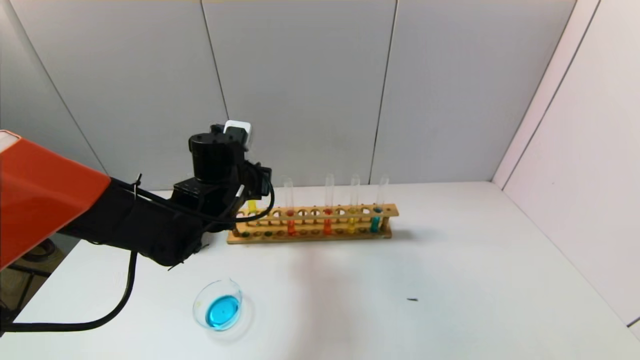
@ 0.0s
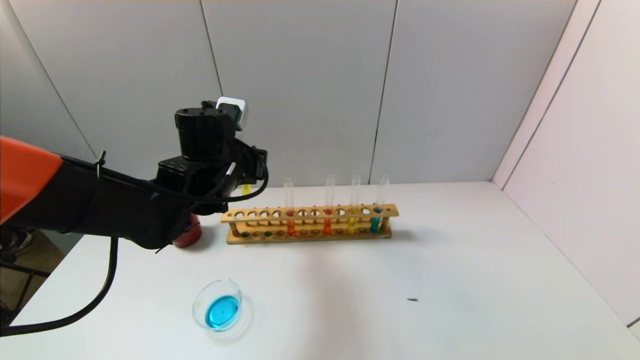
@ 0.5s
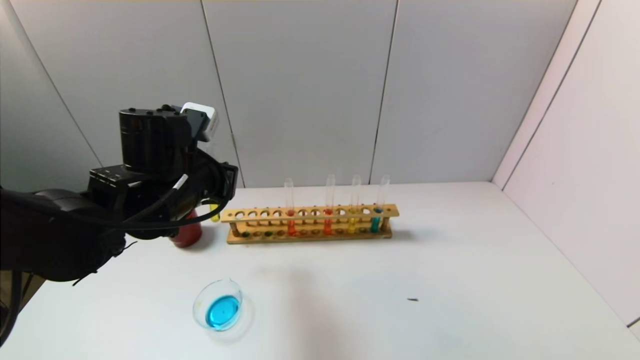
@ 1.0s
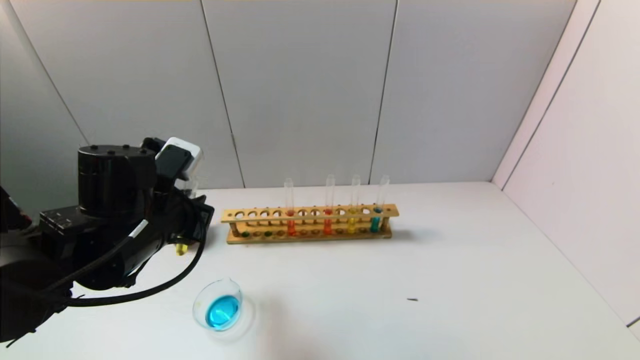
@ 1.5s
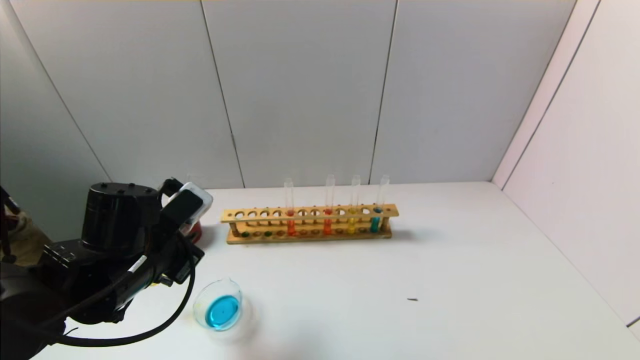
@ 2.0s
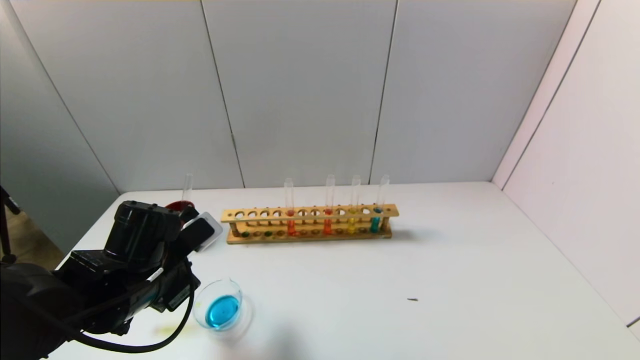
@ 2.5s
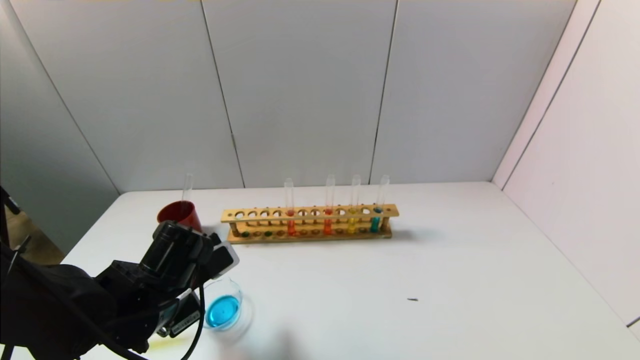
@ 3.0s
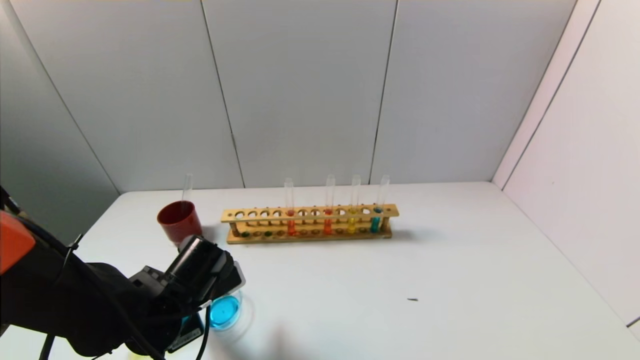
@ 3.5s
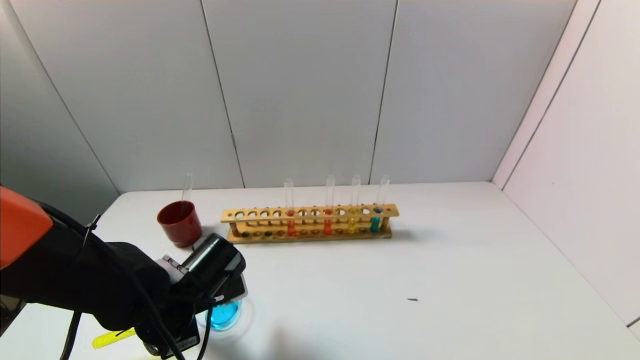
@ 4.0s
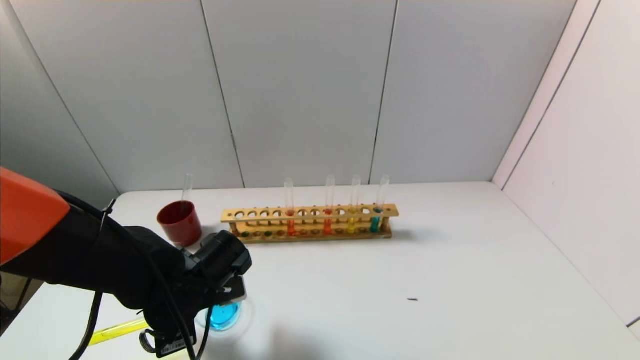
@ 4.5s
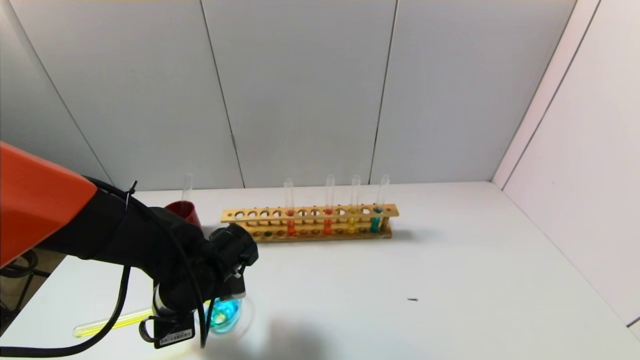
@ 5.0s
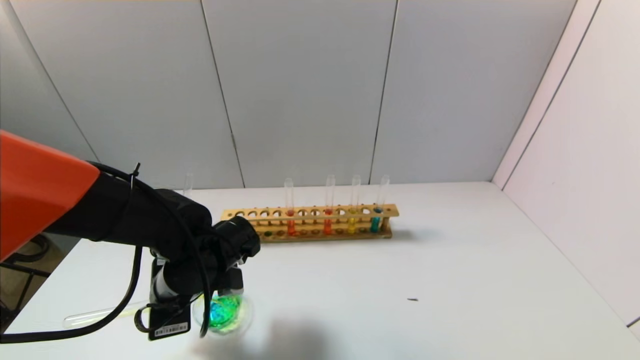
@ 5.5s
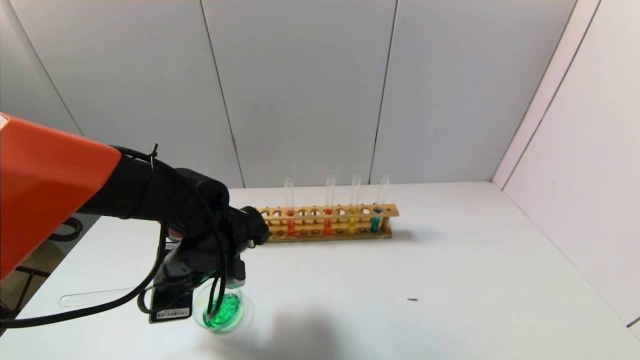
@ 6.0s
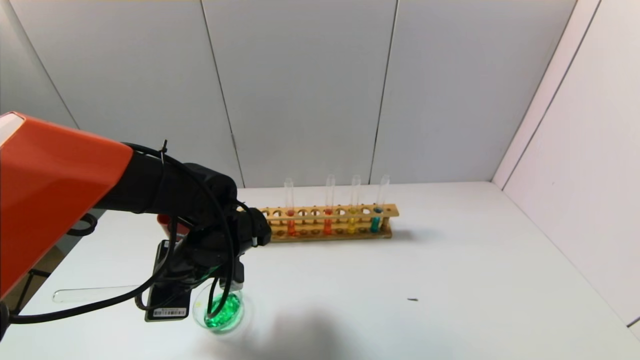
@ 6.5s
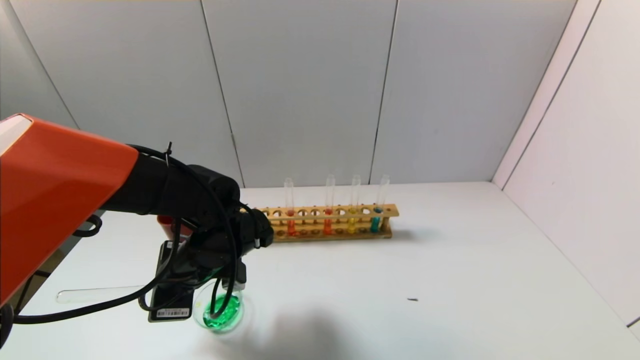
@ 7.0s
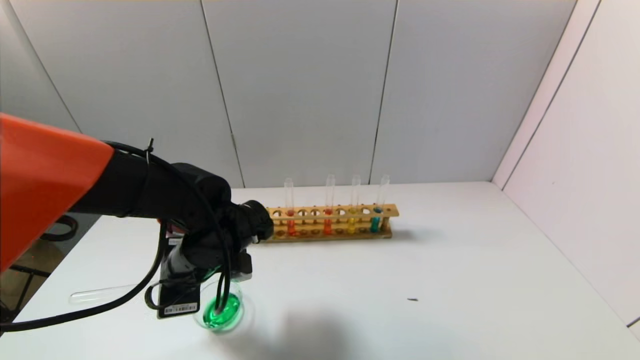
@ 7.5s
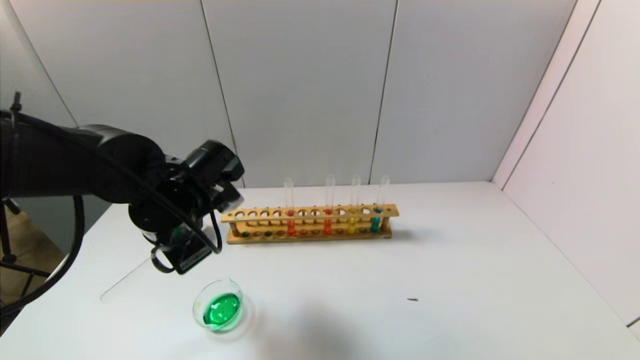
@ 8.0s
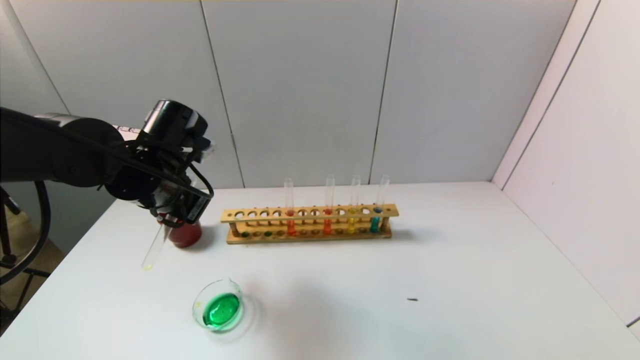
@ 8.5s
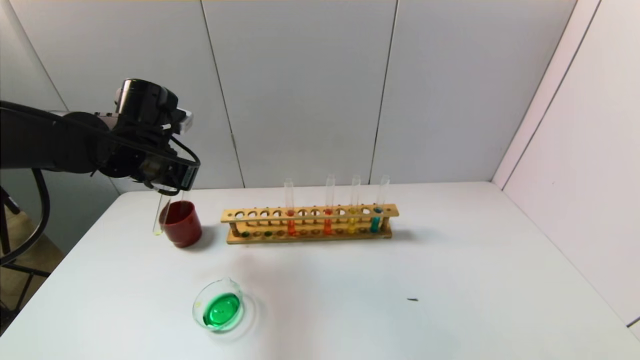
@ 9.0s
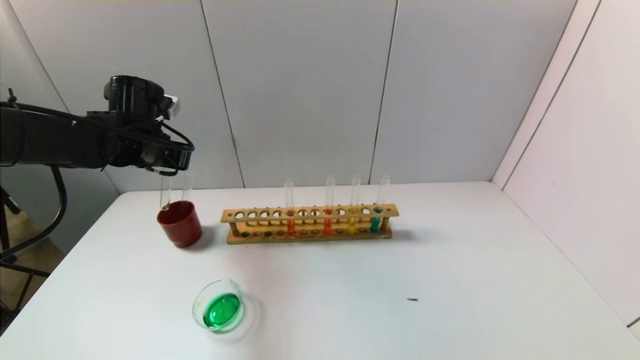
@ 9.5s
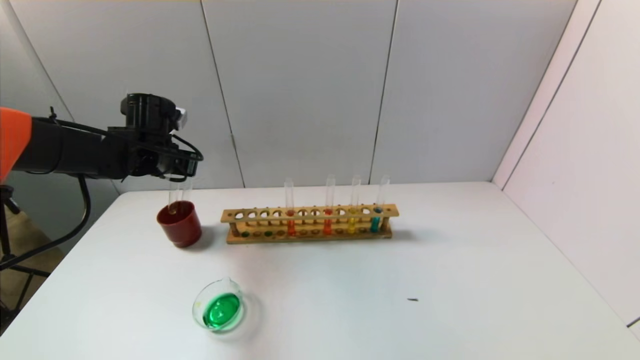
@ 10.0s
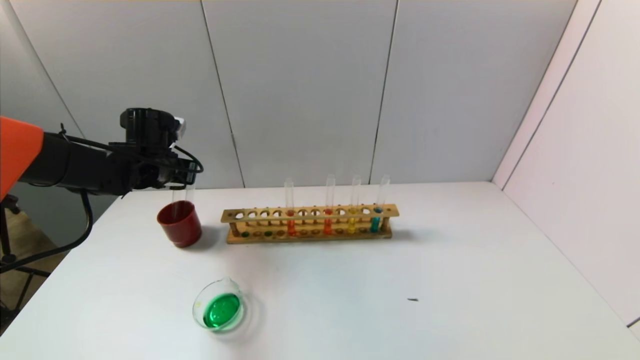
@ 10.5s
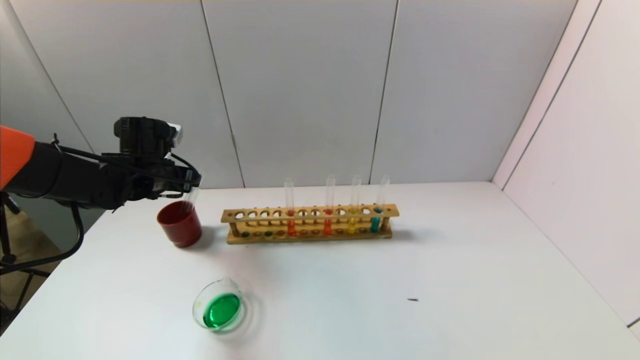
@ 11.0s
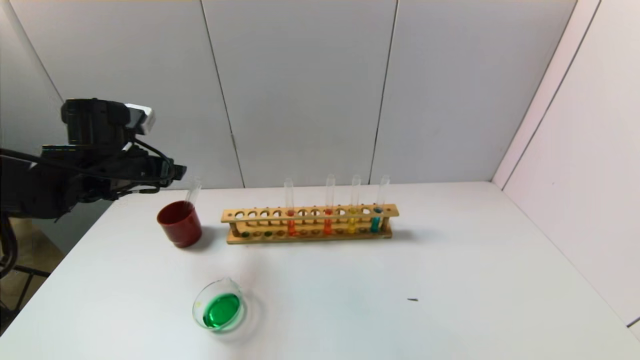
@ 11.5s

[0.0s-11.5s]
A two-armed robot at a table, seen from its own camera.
Task of the whole recording: pick up the test tube with yellow pigment and the test tube with blue pigment by grippers and pour them into the beaker.
Step, 0.0s to 7.5s: Pour the yellow reagent into the graduated cylinder with the left gripper.
Step, 8.0s to 11.0s: Place the test tube into the brown cup with the left gripper.
0.0s to 2.0s: The left gripper is displaced backward and to the left by roughly 15 cm.
2.0s to 4.0s: The left gripper heads downward, covering about 5 cm.
4.0s to 6.0s: The left gripper changes place by approximately 5 cm.
6.0s to 7.5s: The two grippers keep their place.
7.5s to 9.5s: The left gripper is displaced forward, to the left and upward by approximately 20 cm.
9.5s to 11.5s: The left gripper is displaced backward by about 5 cm, and opens its fingers.

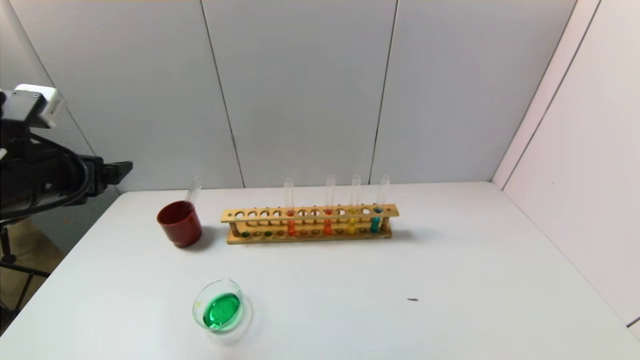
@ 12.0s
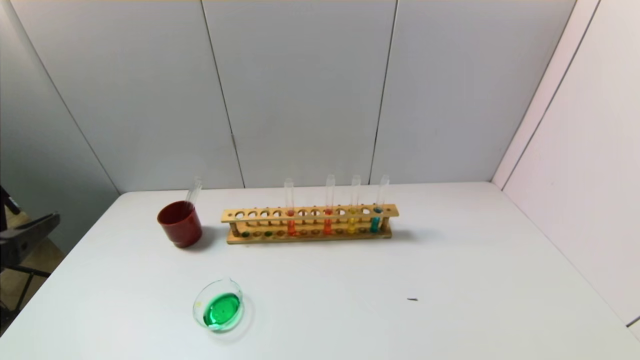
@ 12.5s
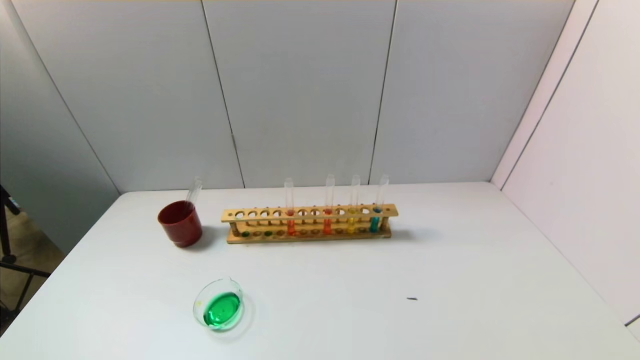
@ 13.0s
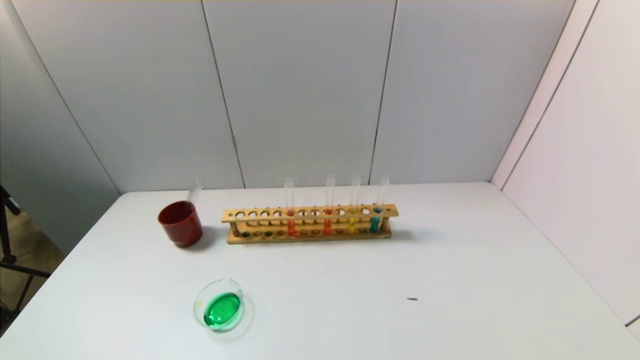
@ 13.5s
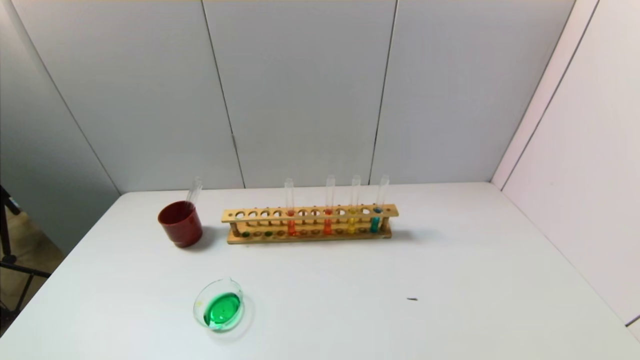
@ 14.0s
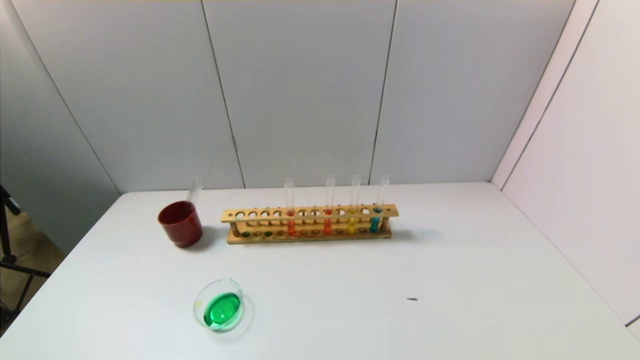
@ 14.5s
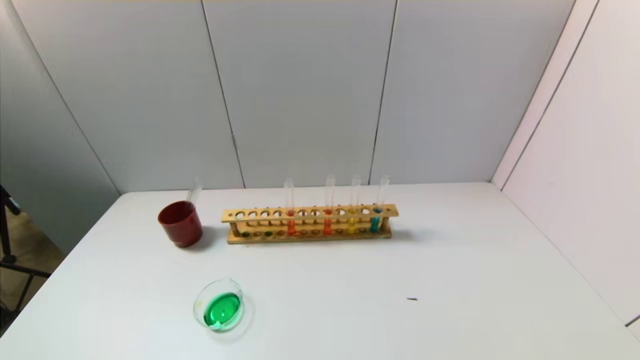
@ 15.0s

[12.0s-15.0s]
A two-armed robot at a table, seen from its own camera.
Task of the whole recording: pick up the test tube with yellow pigment and the test tube with blue pigment by grippers and pour them into the beaker.
12.0s to 13.5s: The left gripper shifts roughly 25 cm backward.
